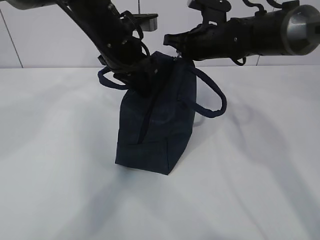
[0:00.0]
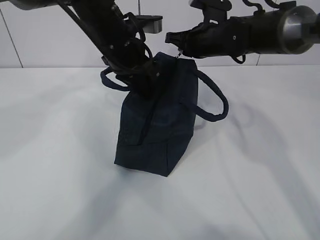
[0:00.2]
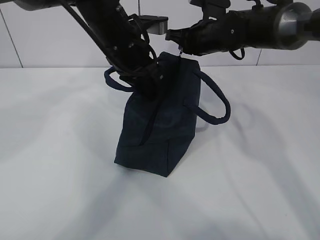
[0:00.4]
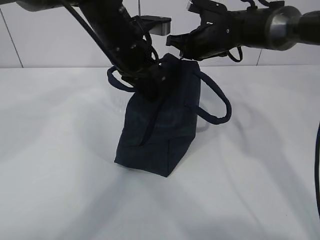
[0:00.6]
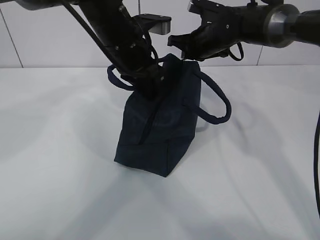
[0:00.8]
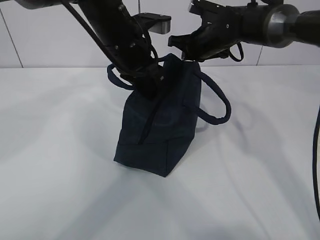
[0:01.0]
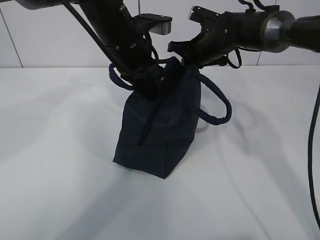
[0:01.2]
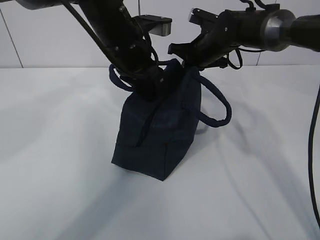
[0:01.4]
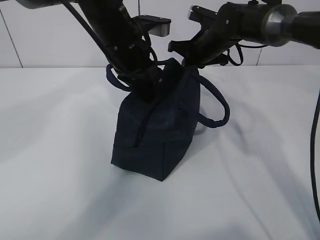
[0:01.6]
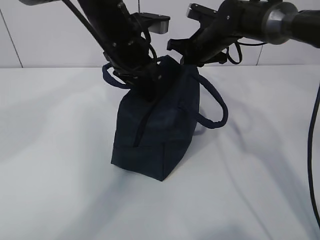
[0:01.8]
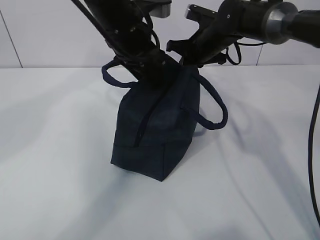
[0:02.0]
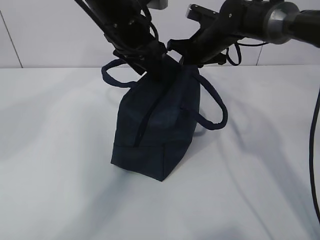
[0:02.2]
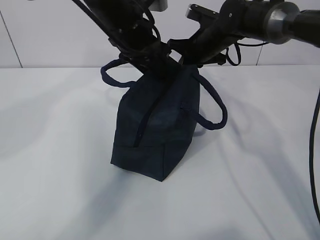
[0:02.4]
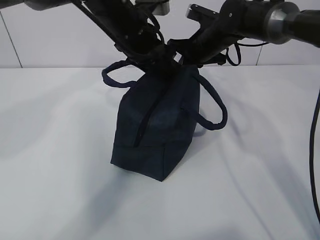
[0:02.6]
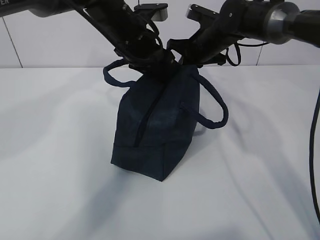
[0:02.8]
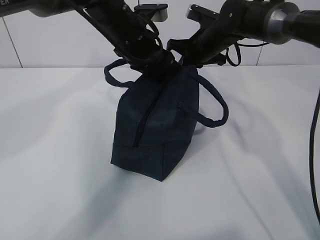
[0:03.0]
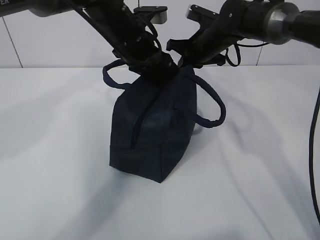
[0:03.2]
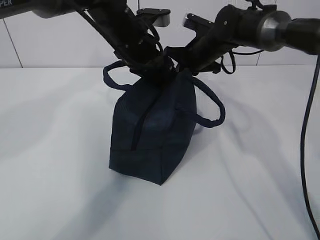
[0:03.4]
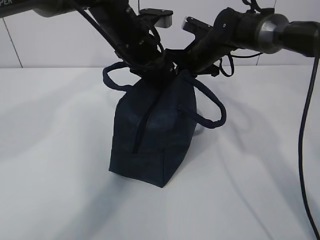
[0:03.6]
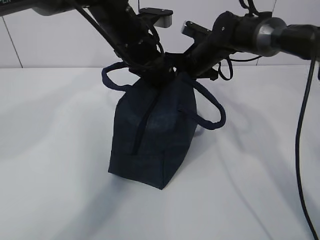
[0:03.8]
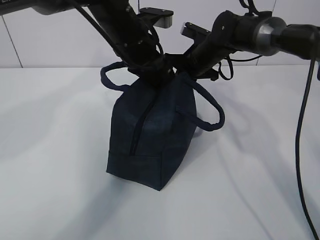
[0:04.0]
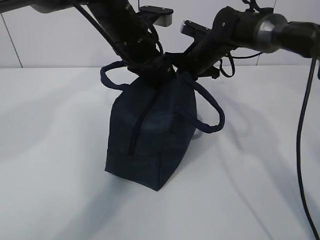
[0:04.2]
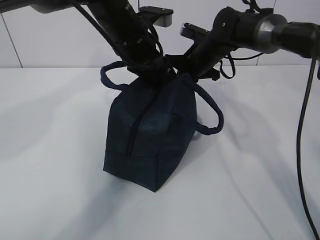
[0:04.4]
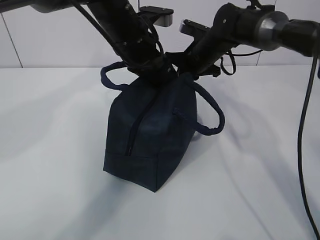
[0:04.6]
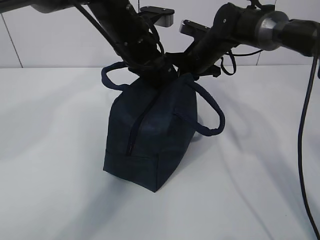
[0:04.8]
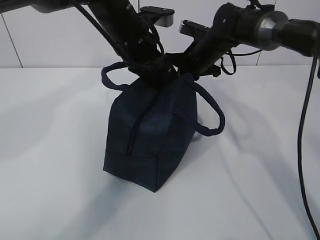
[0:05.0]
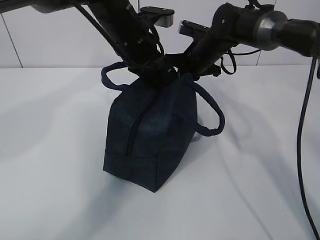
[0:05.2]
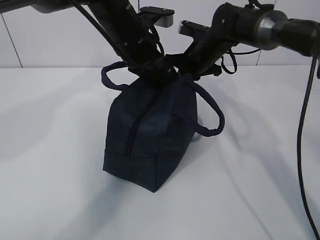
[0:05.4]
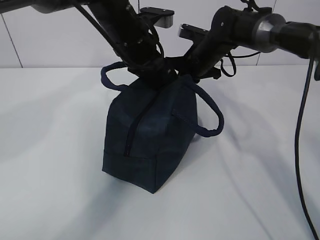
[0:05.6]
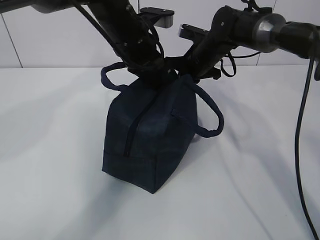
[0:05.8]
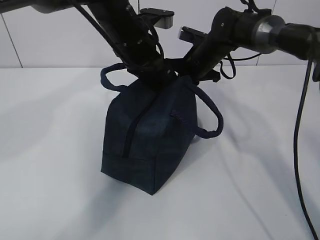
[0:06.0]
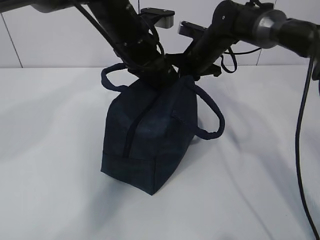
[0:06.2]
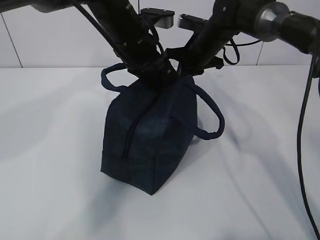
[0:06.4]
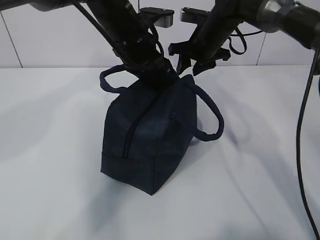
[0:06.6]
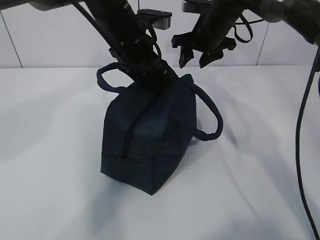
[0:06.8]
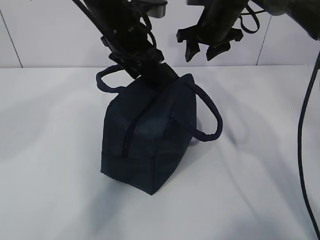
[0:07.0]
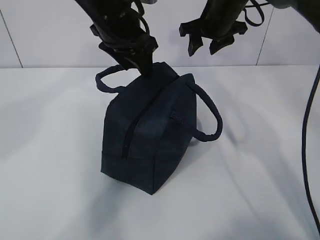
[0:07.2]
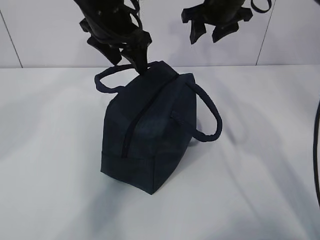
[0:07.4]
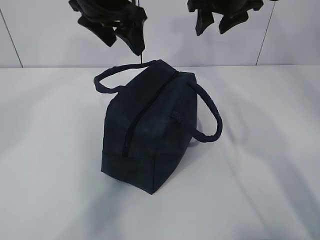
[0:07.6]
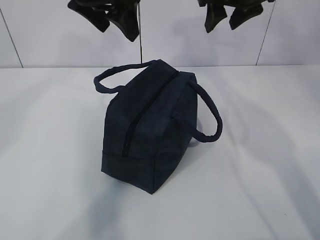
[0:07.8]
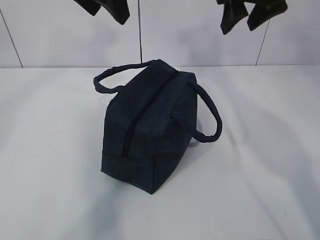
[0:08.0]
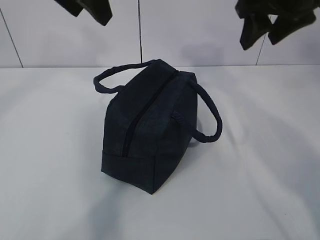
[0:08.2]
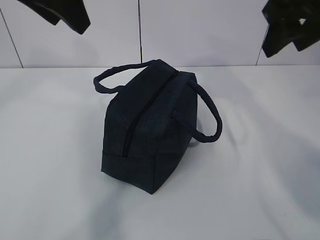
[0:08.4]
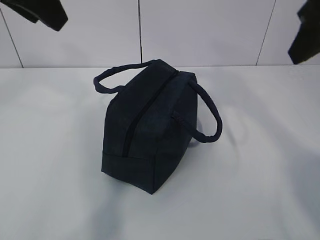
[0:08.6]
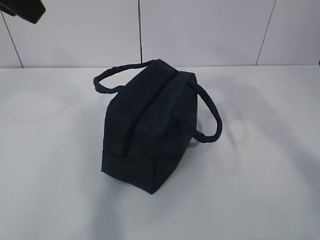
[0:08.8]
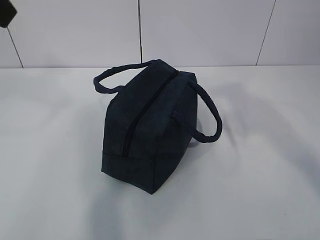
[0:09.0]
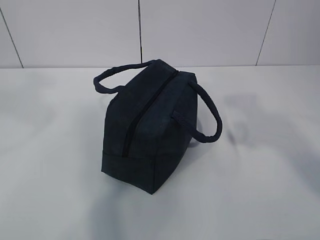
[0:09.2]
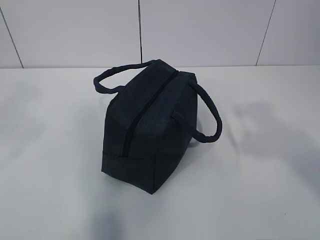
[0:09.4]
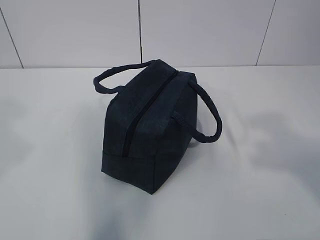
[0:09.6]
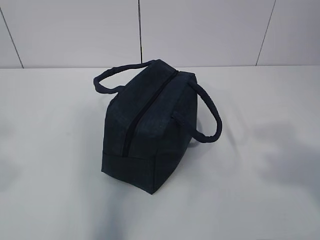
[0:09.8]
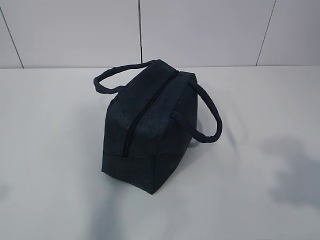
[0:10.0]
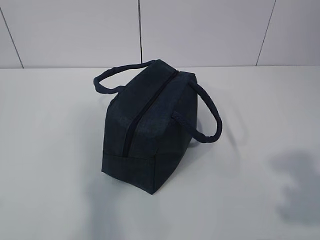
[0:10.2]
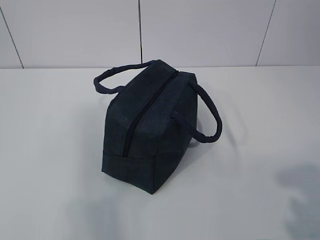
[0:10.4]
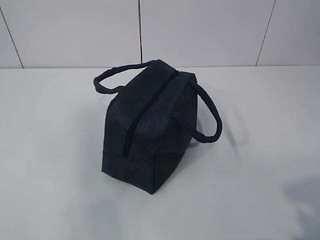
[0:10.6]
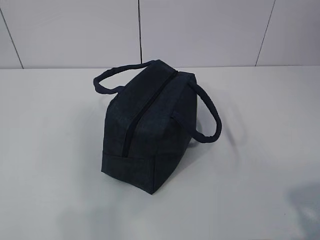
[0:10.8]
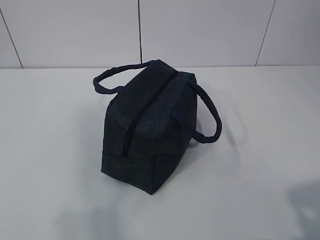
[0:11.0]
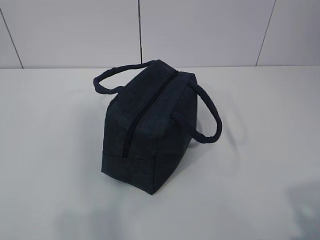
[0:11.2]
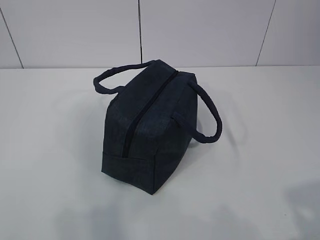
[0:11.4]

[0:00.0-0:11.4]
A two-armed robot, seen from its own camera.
0:00.0 to 0:01.4: The right gripper shifts by roughly 5 cm.
0:01.4 to 0:02.8: The left gripper opens.
0:02.8 to 0:04.2: The left gripper closes its fingers.
0:04.2 to 0:05.6: There are only small adjustments of the grippers.
0:05.6 to 0:07.2: The right gripper goes about 10 cm upward, and opens its fingers. Meanwhile the left gripper moves approximately 5 cm, and opens its fingers.
0:07.2 to 0:08.6: The right gripper goes roughly 25 cm backward and upward; the left gripper goes some 20 cm backward, upward and to the left.
0:08.6 to 0:10.0: The left gripper travels backward and to the left by roughly 25 cm. Meanwhile the right gripper goes approximately 25 cm backward.
0:10.0 to 0:11.4: The right gripper travels downward by approximately 10 cm.
